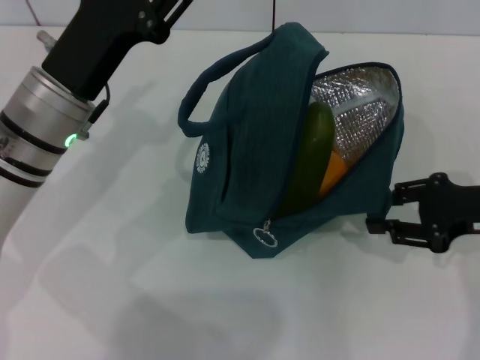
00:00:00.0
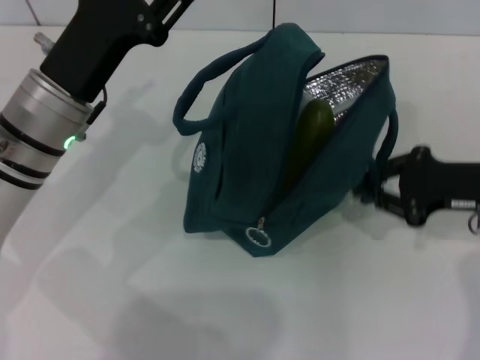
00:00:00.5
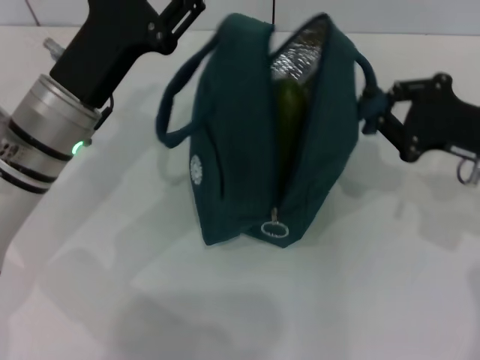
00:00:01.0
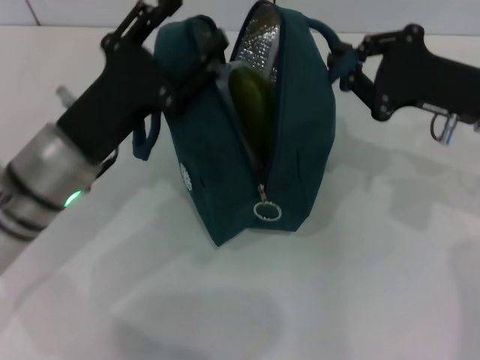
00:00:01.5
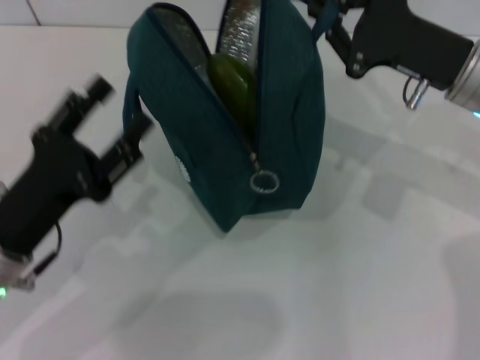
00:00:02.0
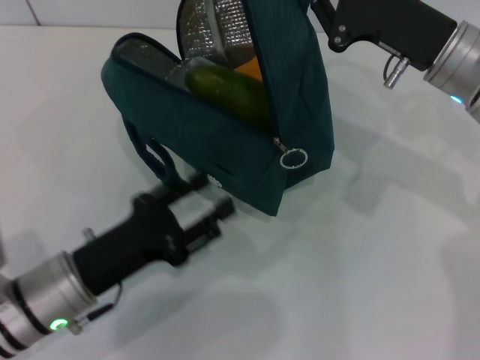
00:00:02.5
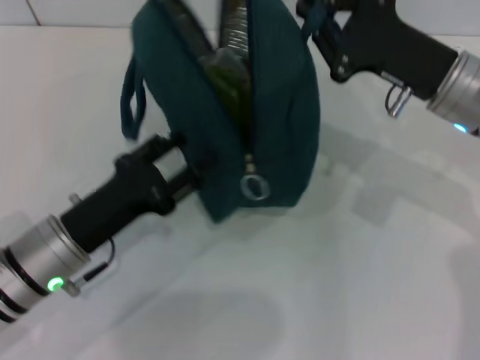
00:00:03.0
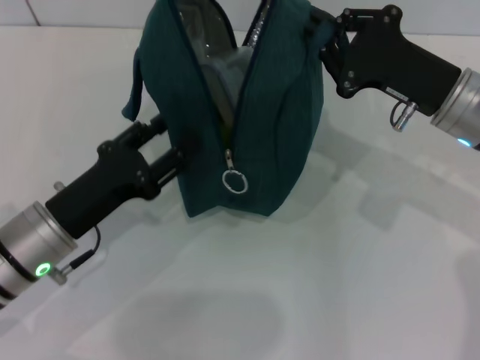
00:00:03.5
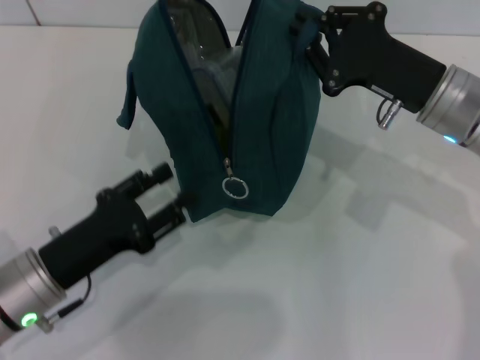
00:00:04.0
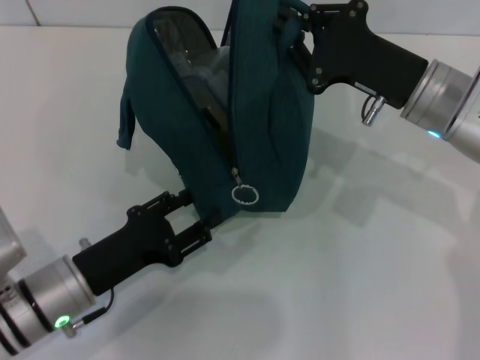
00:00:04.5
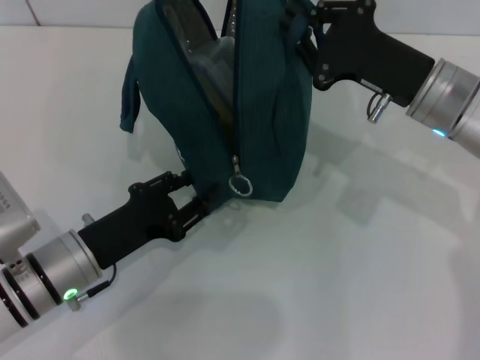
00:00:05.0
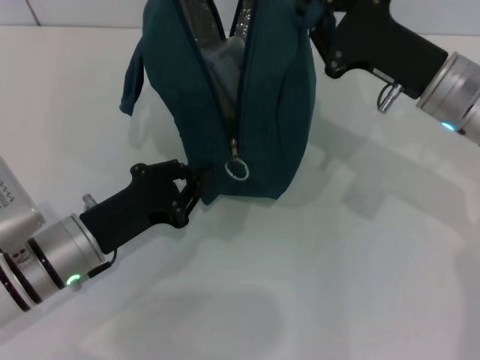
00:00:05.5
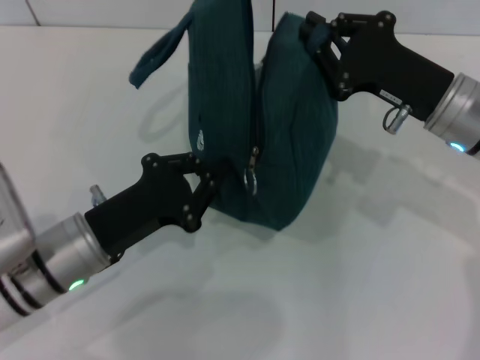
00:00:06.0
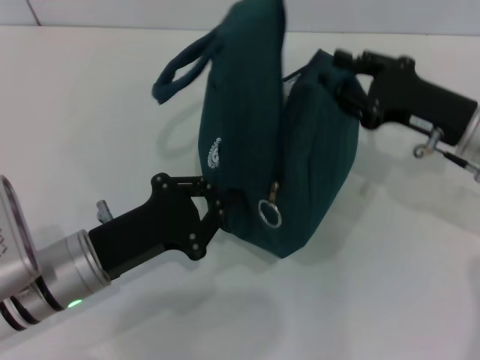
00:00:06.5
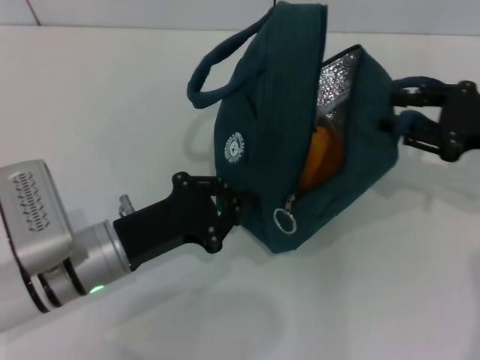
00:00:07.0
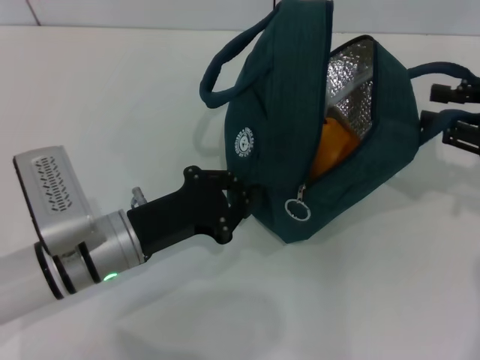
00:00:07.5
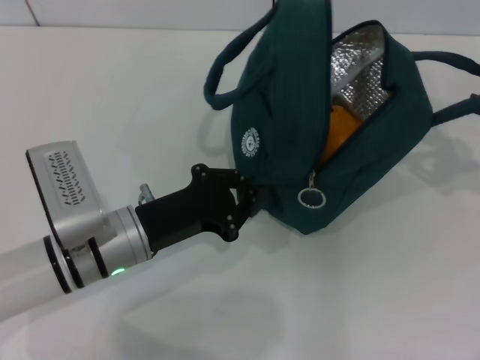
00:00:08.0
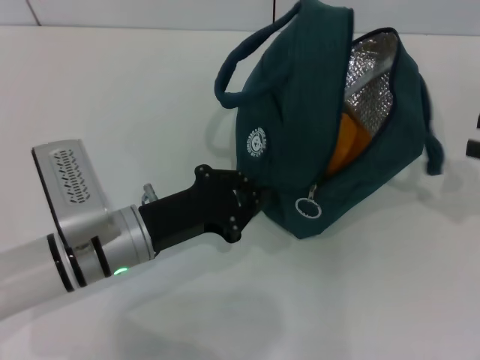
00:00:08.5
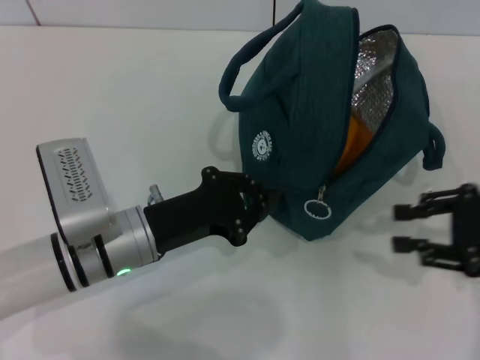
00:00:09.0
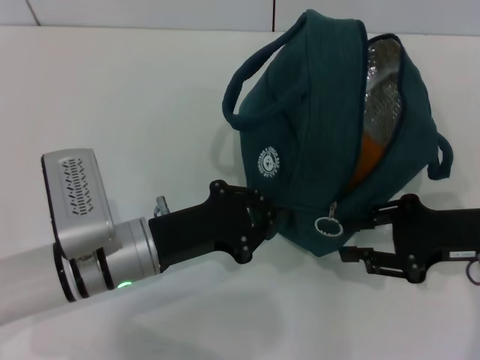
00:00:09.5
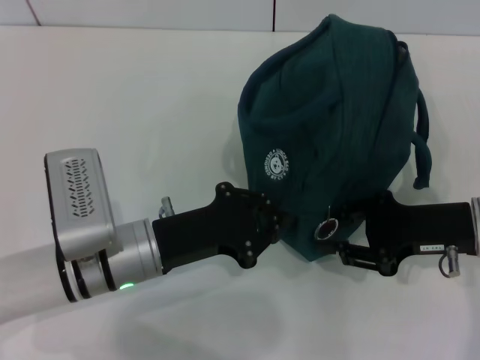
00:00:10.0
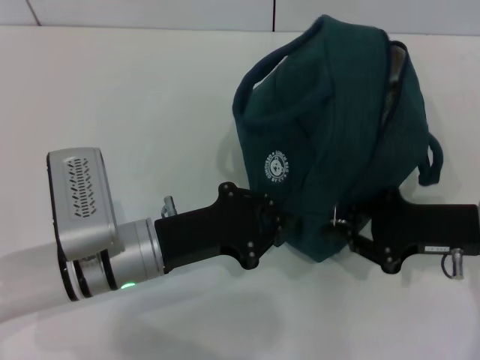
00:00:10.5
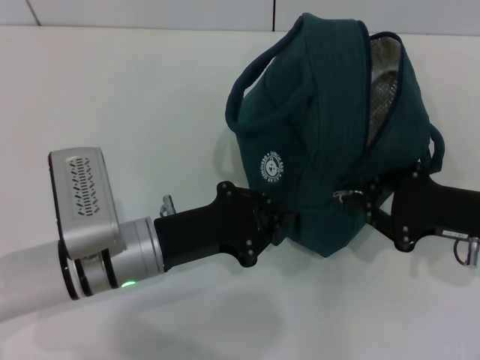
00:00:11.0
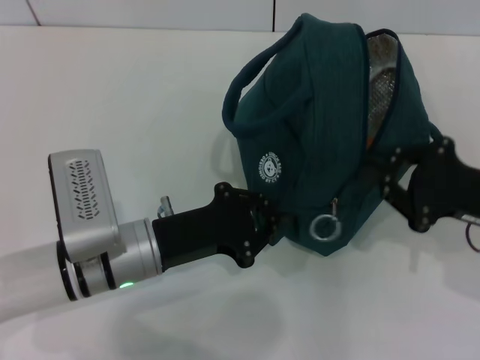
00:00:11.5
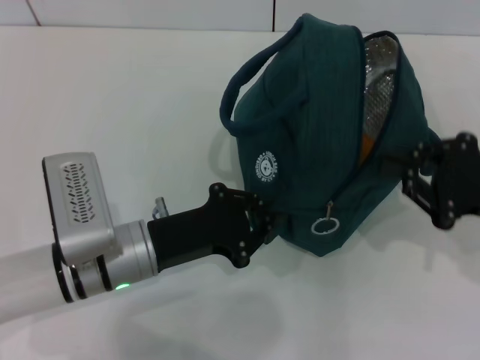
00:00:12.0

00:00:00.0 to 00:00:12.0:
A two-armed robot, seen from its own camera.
00:00:00.0 to 00:00:02.0: The left gripper travels backward, downward and to the left by about 15 cm. Meanwhile the right gripper shifts about 10 cm to the left, forward and upward.
00:00:04.0 to 00:00:06.0: The left gripper ends up approximately 5 cm from where it was, and closes.
00:00:06.0 to 00:00:08.0: The right gripper moves to the right, roughly 20 cm.
00:00:08.0 to 00:00:10.0: The right gripper goes some 15 cm to the left and downward.
00:00:10.0 to 00:00:12.0: The right gripper moves some 5 cm.

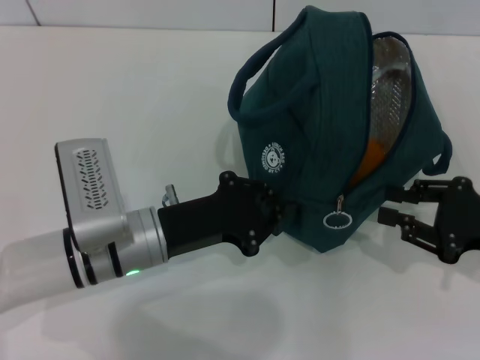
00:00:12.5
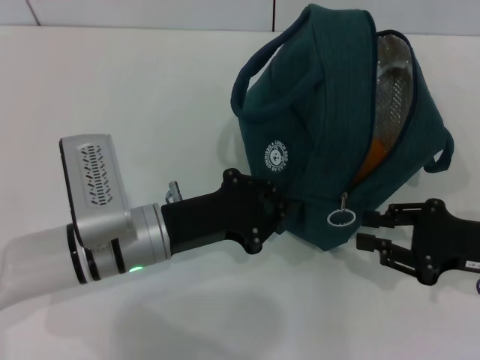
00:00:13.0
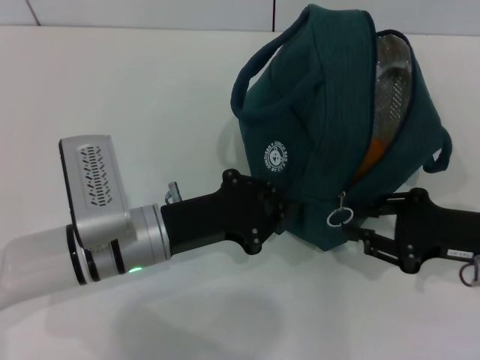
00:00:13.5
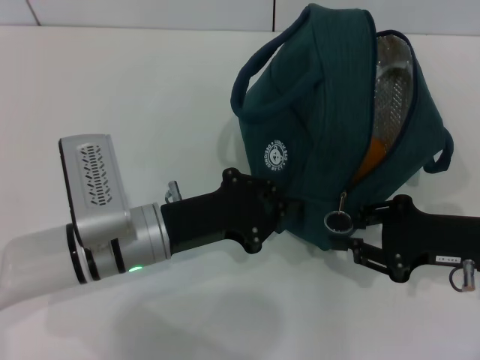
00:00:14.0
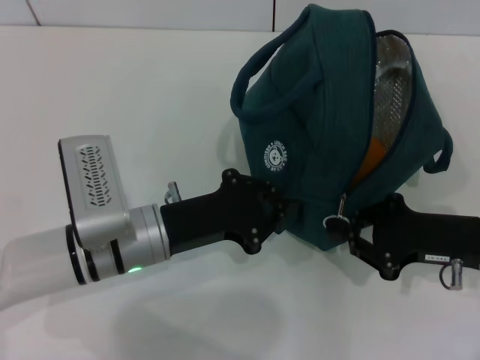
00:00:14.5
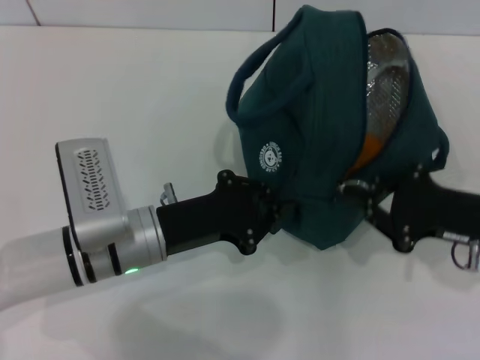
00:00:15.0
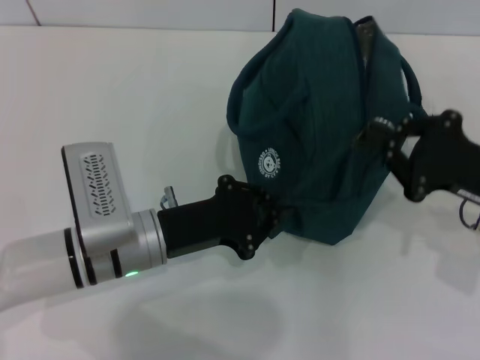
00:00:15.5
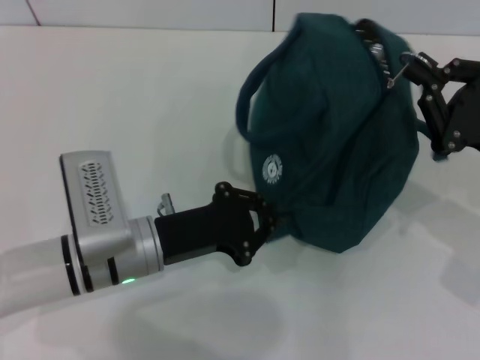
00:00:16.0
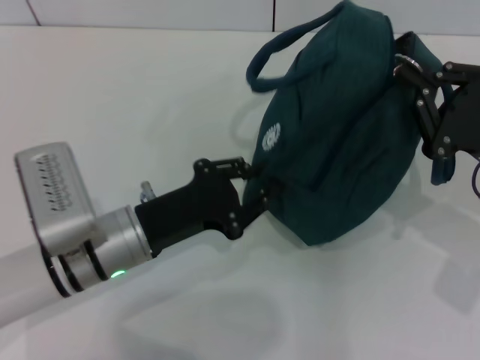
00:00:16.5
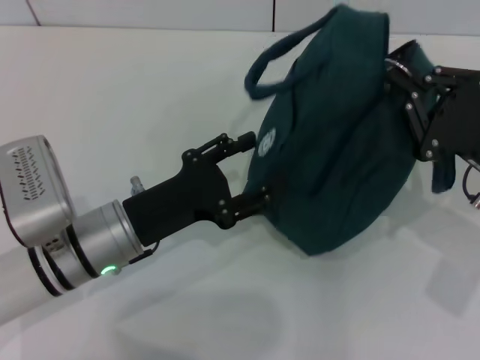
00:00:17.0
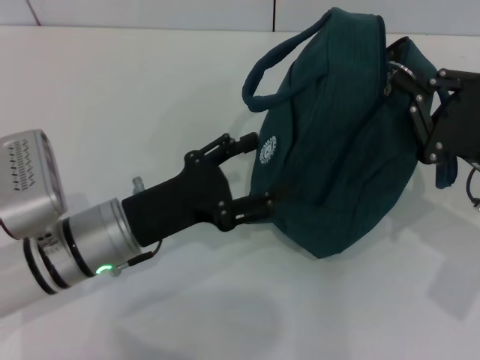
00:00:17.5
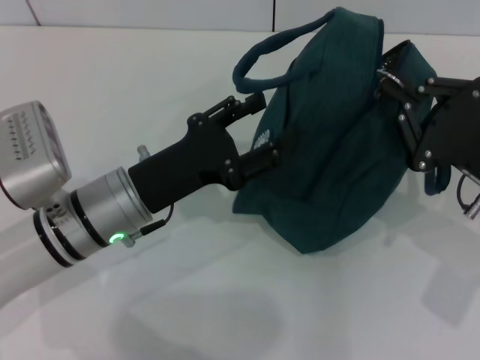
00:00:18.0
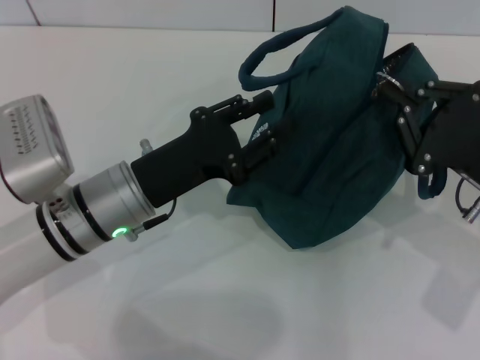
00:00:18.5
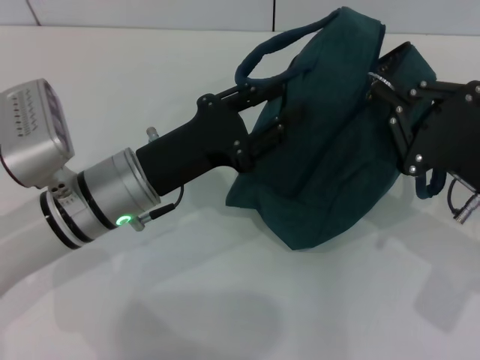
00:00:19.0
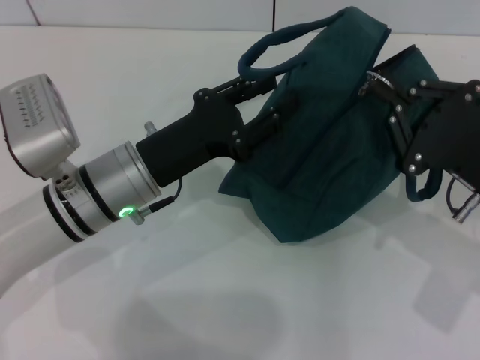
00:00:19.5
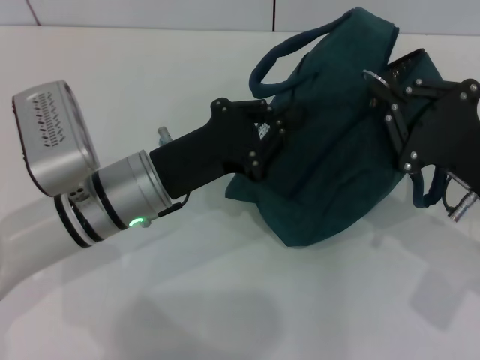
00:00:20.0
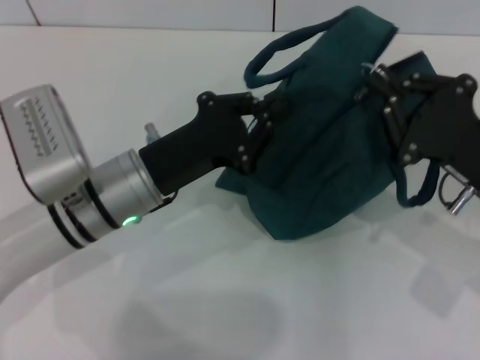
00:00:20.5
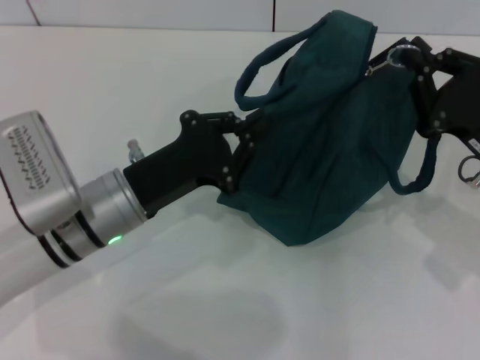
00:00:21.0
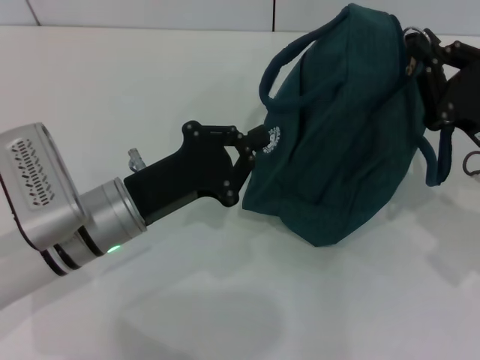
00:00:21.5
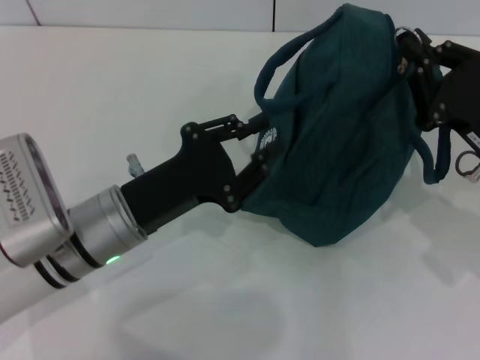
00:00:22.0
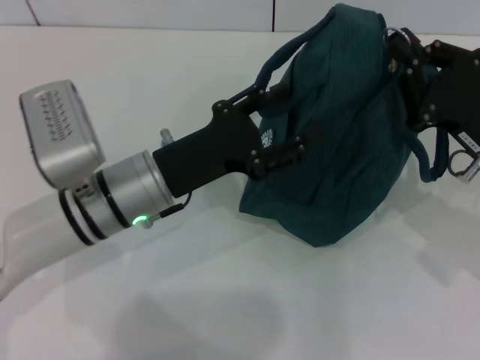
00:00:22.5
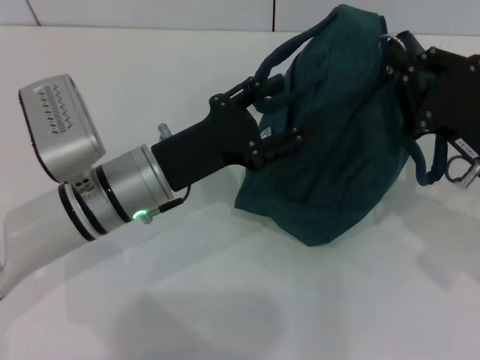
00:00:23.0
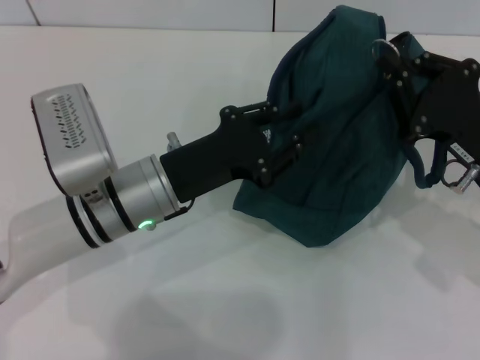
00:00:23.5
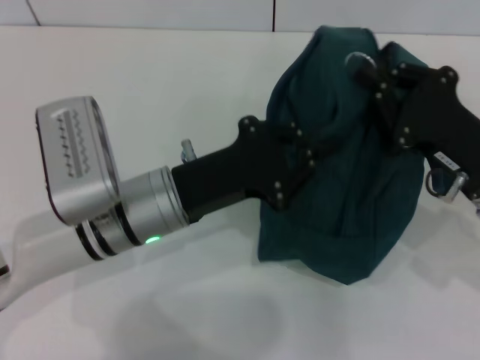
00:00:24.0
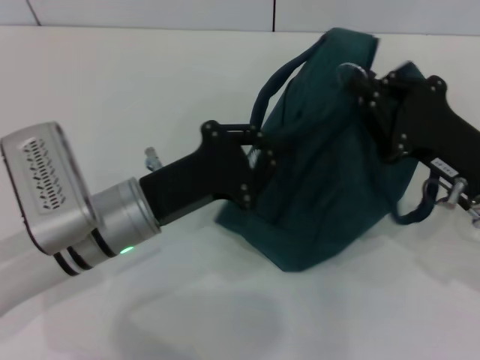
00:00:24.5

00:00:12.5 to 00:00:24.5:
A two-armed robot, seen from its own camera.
00:00:12.5 to 00:00:14.5: The right gripper moves to the left, approximately 5 cm.
00:00:16.5 to 00:00:18.5: The left gripper opens.
00:00:18.5 to 00:00:20.5: The left gripper closes its fingers.
00:00:20.5 to 00:00:22.5: The left gripper opens.
00:00:22.5 to 00:00:24.5: The left gripper closes its fingers.

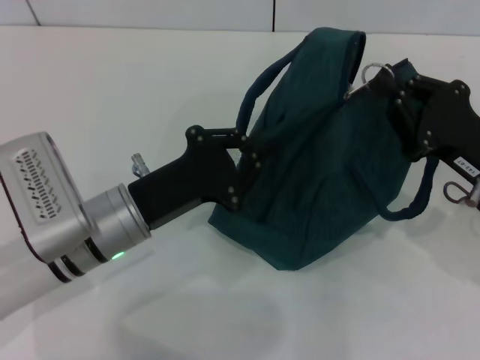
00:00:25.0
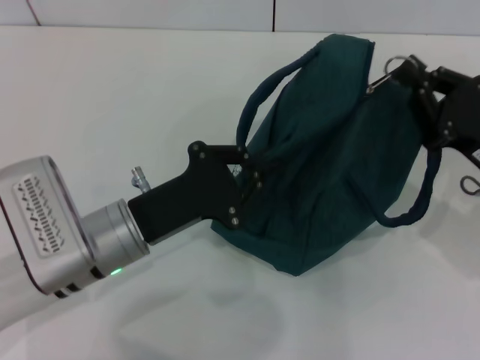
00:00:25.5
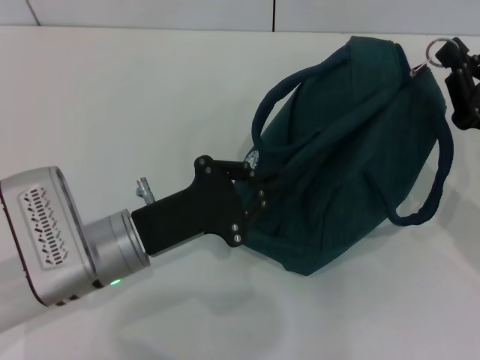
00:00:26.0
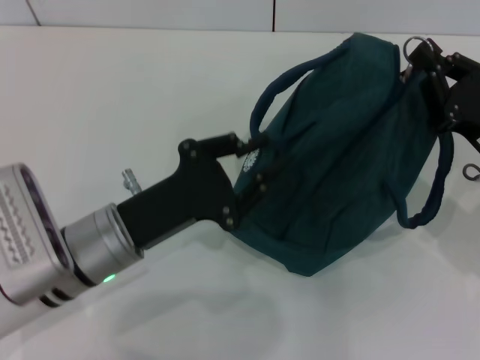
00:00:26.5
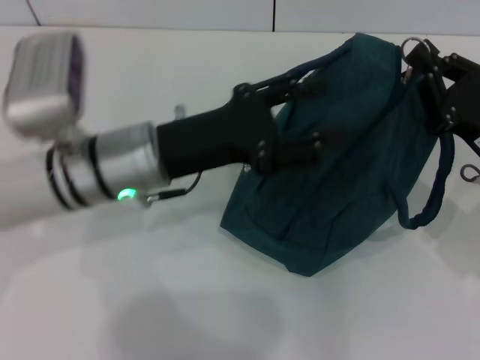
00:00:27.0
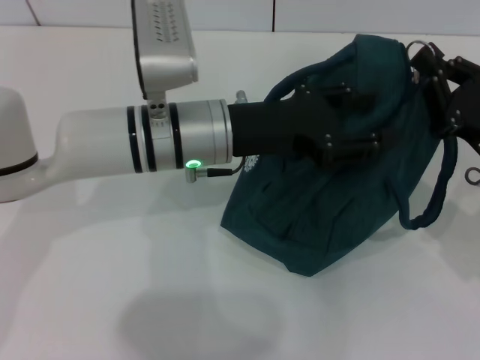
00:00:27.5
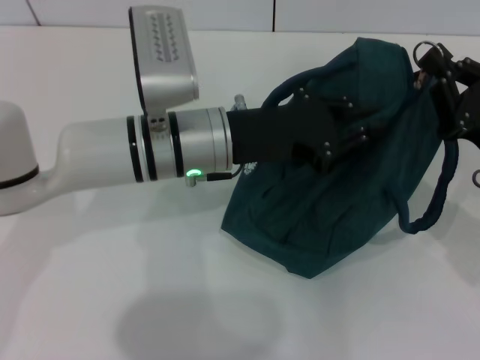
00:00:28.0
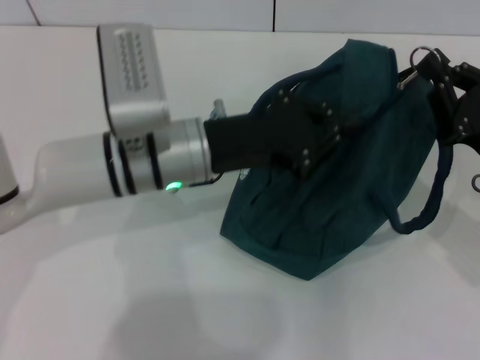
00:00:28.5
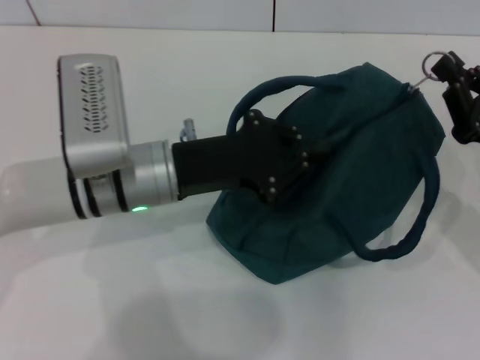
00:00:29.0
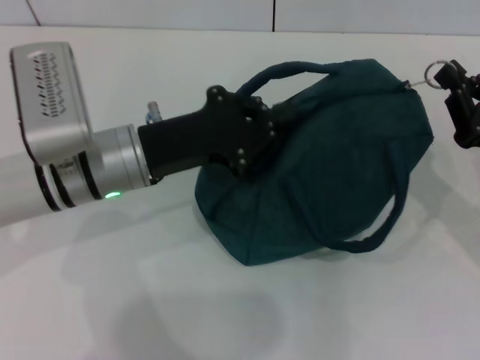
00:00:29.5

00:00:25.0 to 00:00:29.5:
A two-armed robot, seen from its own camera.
00:00:25.0 to 00:00:27.0: The left gripper moves upward, about 5 cm, and opens.
00:00:27.0 to 00:00:29.5: The left gripper closes its fingers.
